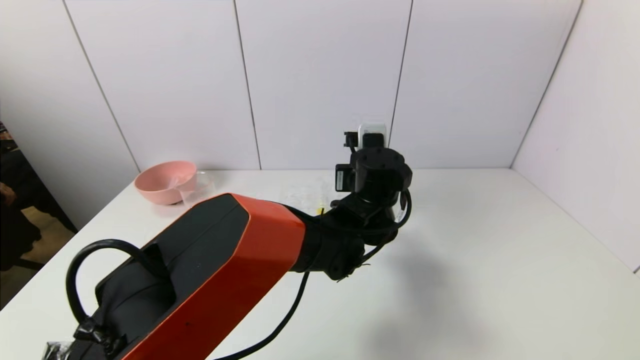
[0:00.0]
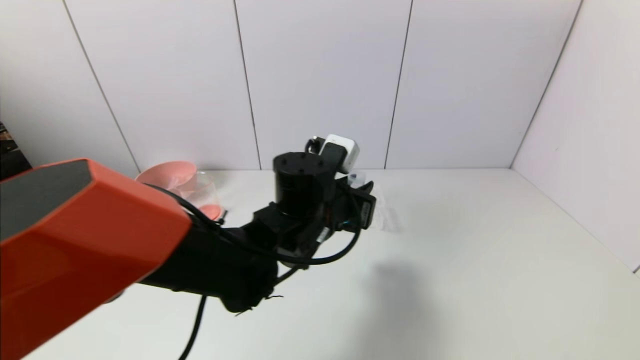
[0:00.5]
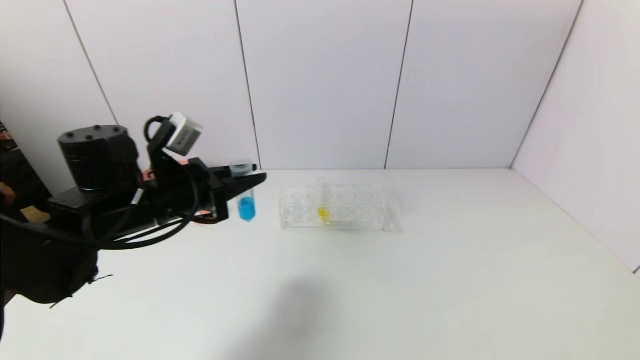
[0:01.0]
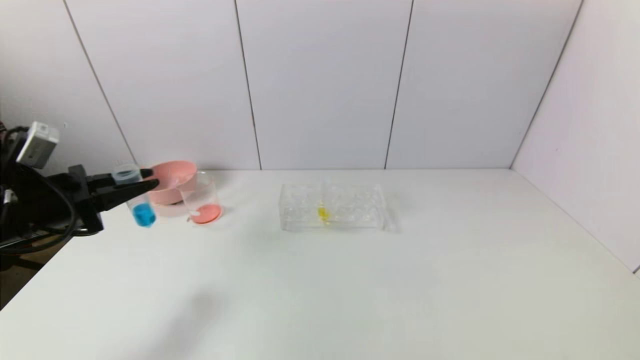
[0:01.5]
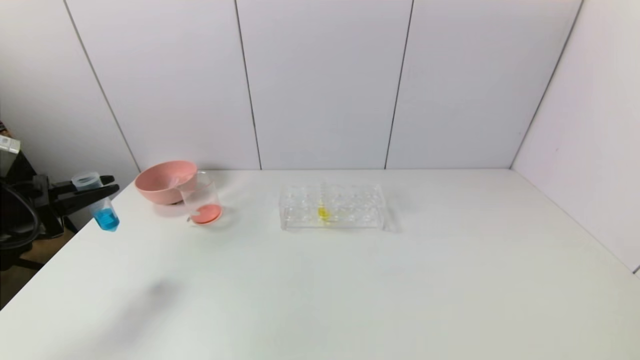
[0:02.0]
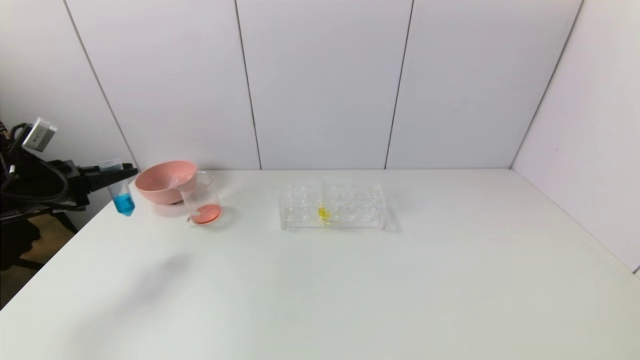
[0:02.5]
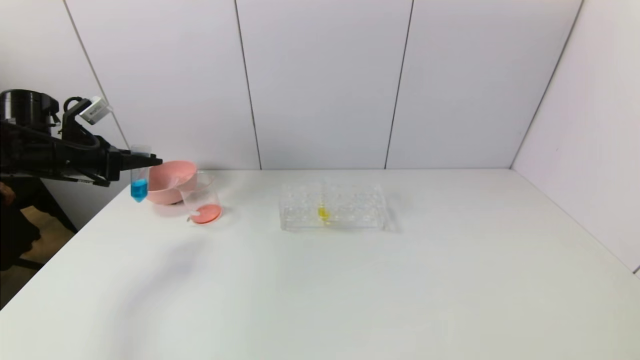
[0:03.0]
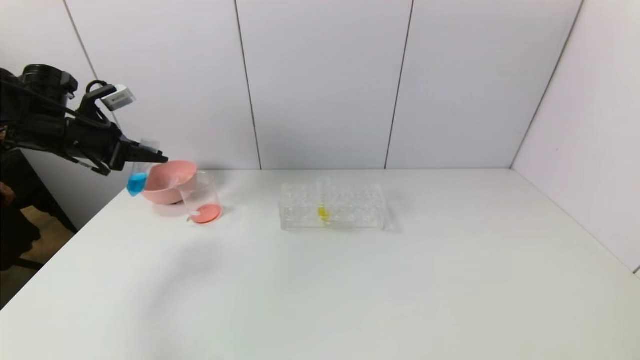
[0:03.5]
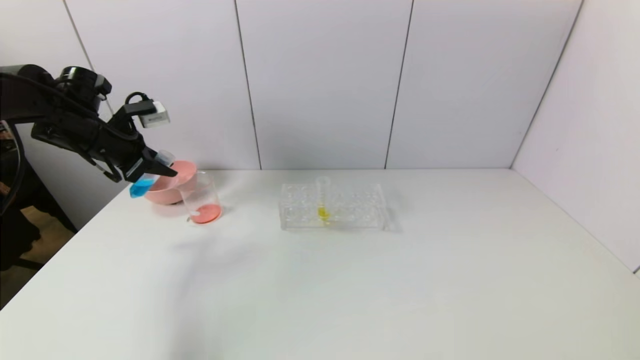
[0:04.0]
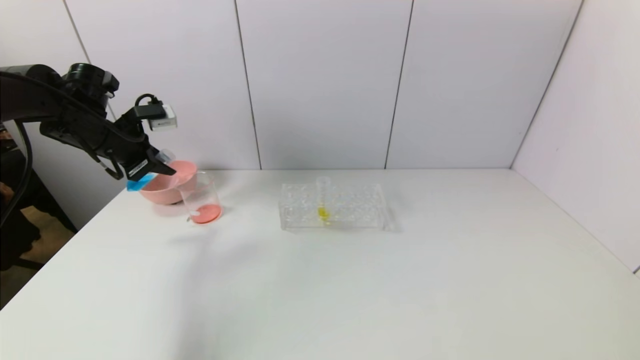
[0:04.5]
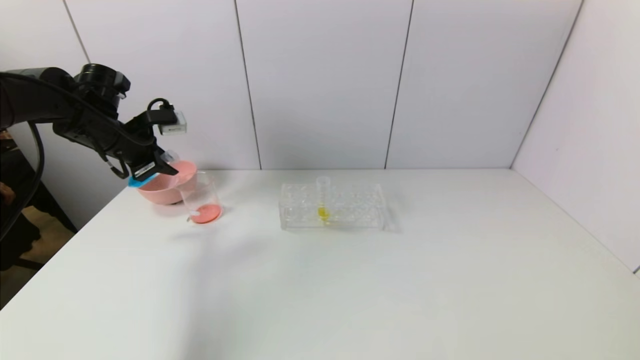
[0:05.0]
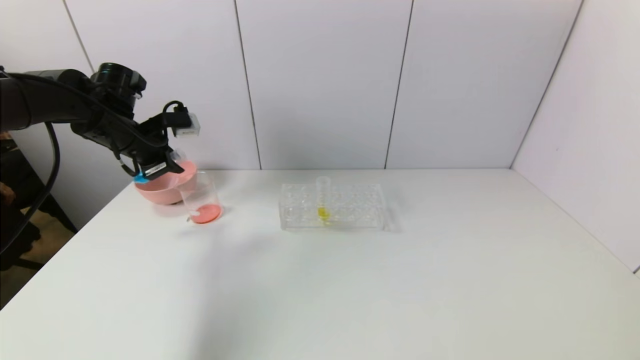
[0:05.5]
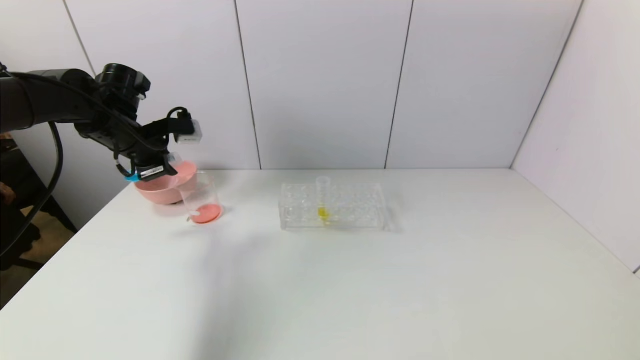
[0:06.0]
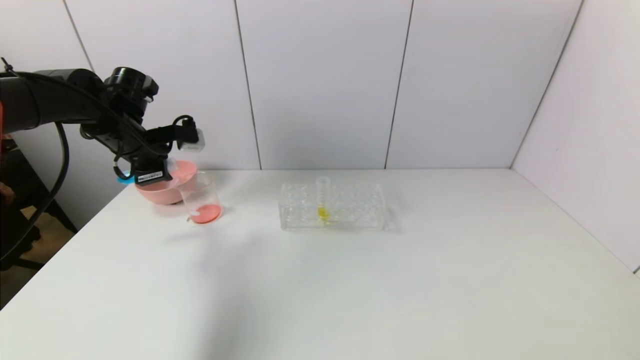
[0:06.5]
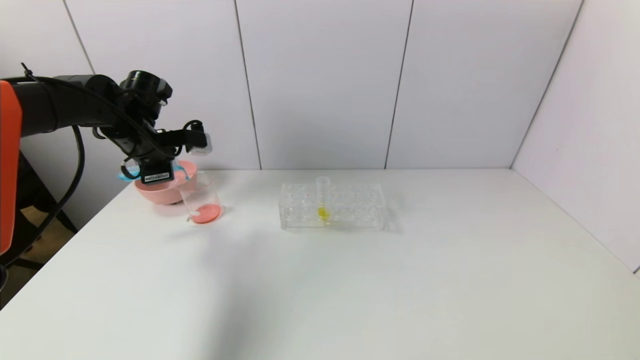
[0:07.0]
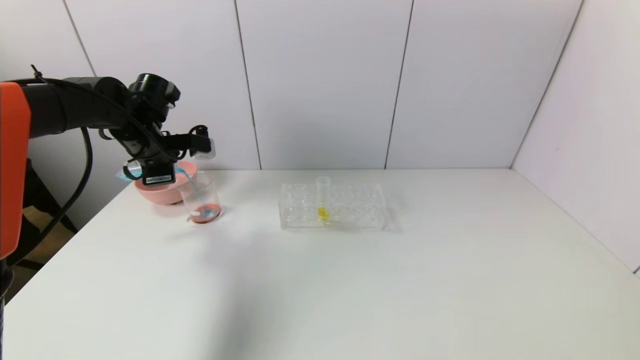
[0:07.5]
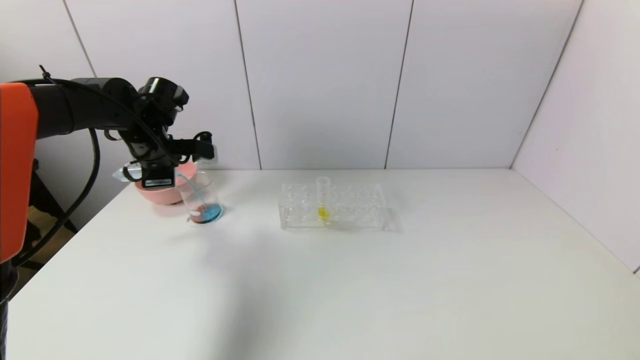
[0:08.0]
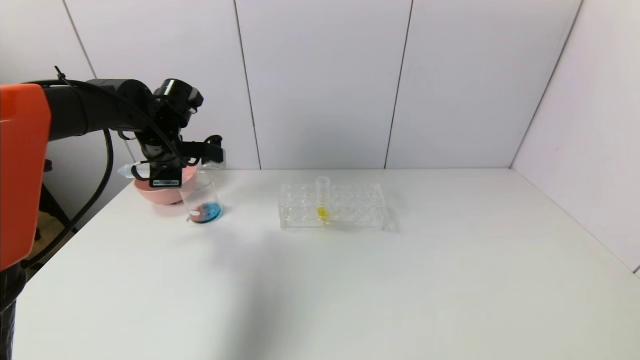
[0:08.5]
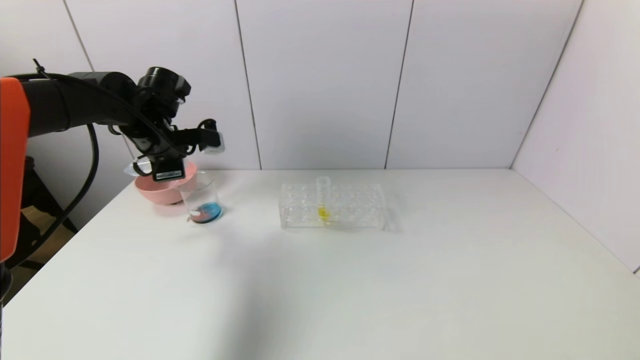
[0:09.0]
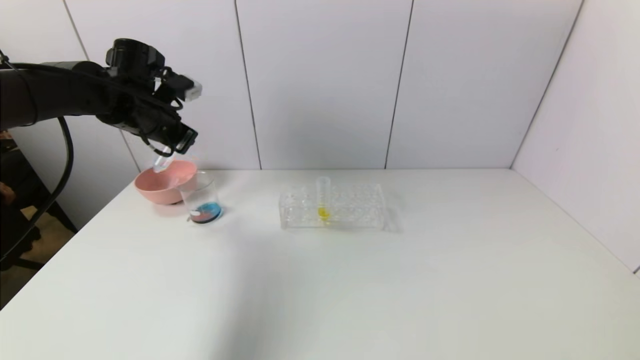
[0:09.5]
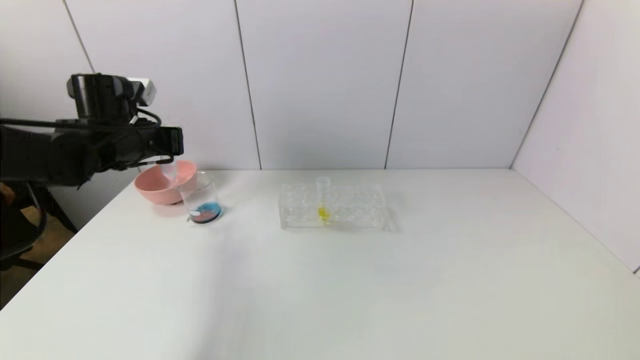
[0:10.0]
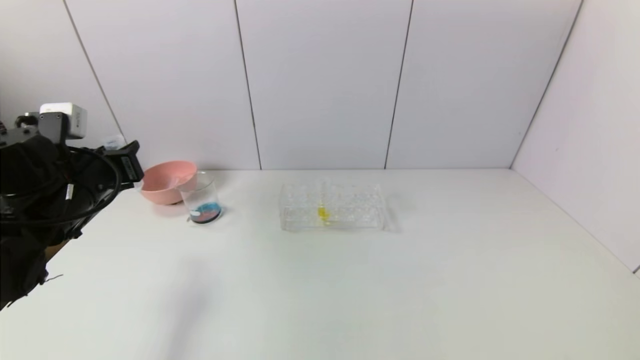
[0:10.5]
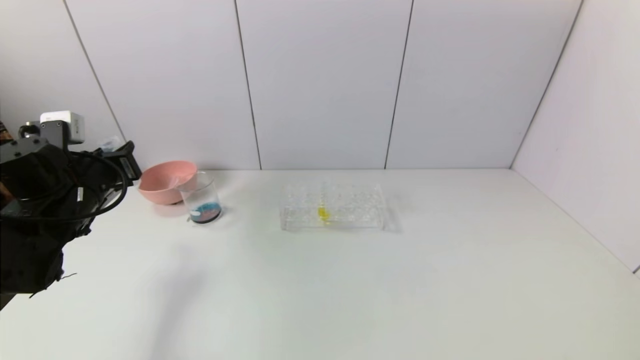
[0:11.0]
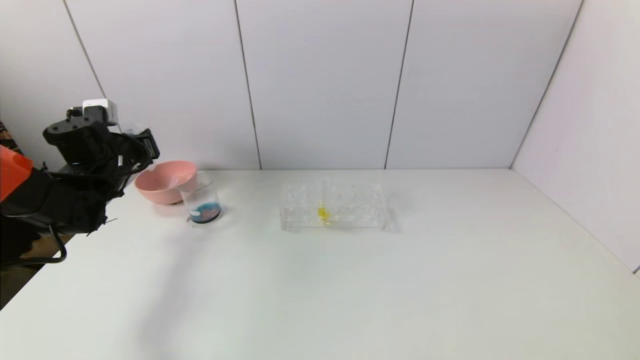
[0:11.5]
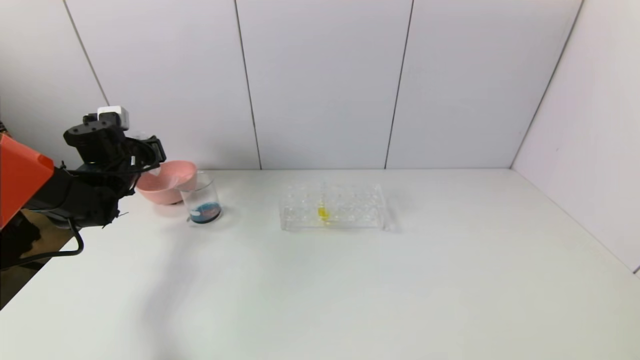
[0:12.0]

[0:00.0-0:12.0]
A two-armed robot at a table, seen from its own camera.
Task of the whole recording: pick up the test tube with red pigment and the test tube with blue pigment by grippers and pour them into the container.
Step, 0:00.0 to 0:09.0: Pour the blue reagent into the graduated cylinder with the left gripper.
0:00.0 to 0:02.0: The left gripper shifts roughly 50 cm to the left.
0:02.0 to 0:04.0: The left gripper is displaced forward, to the right and upward by roughly 15 cm.
0:10.0 to 0:12.0: The left gripper goes about 10 cm downward, to the left and forward.

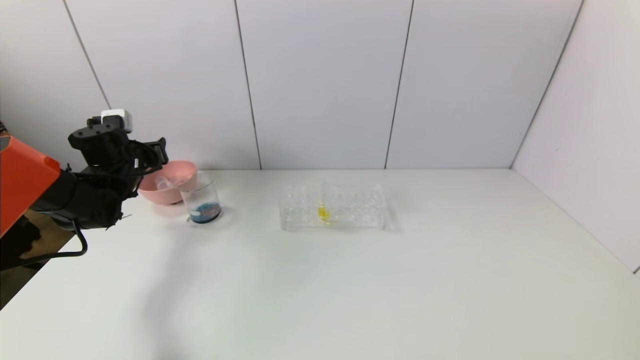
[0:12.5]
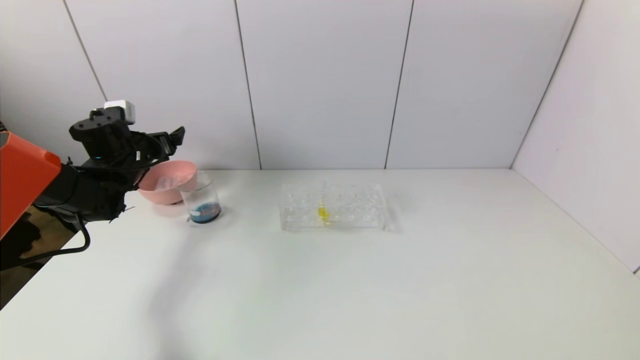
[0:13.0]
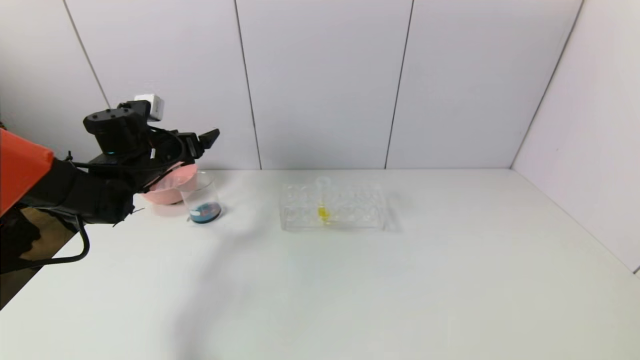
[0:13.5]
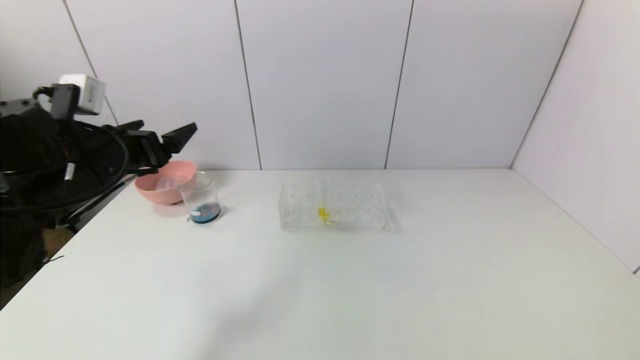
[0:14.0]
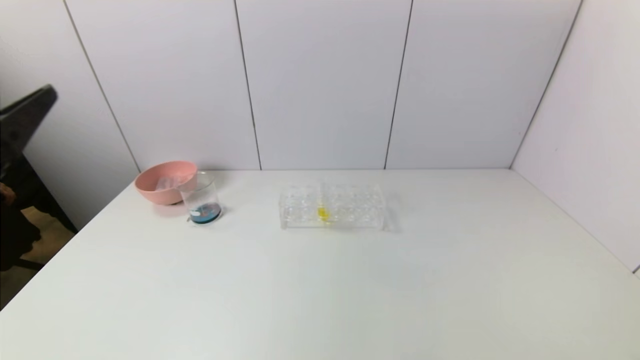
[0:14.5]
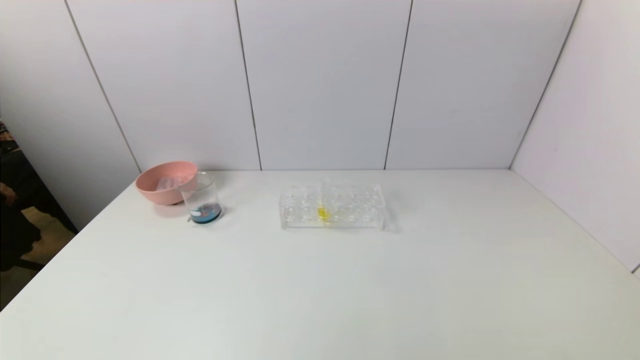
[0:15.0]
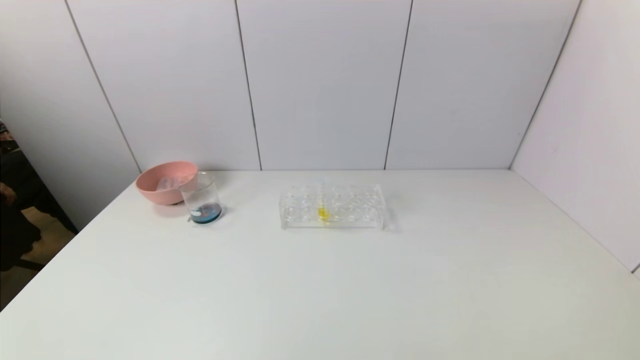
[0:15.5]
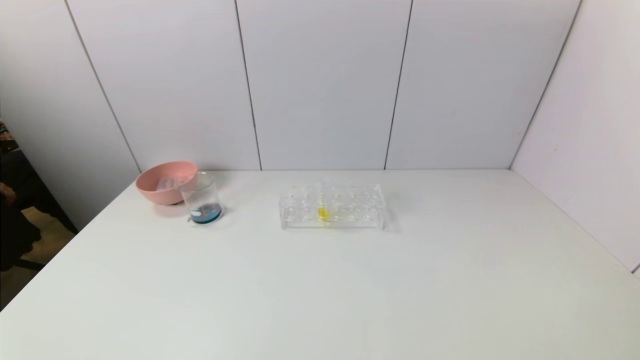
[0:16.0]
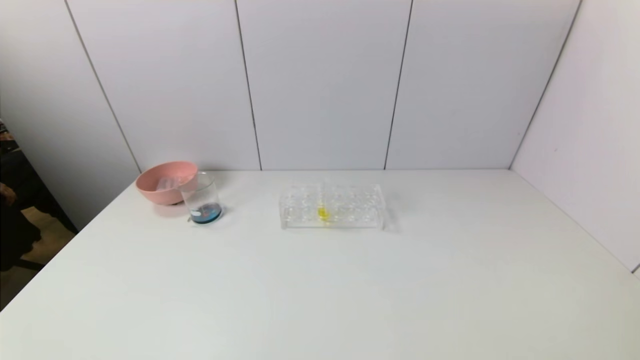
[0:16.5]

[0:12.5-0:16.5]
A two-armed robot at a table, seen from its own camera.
Task of the whole recording: pick up the test tube with red pigment and the test tube with blue pigment by grippers and pour them into the container.
0:12.5 to 0:14.5: The left gripper shifts some 35 cm backward and upward, and opens up.
0:14.5 to 0:16.5: The left gripper is displaced downward and backward by roughly 25 cm.
